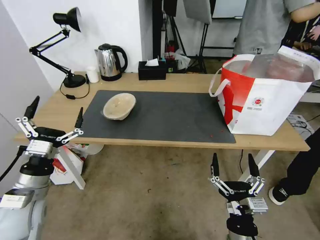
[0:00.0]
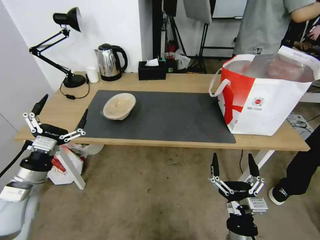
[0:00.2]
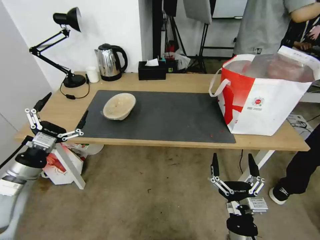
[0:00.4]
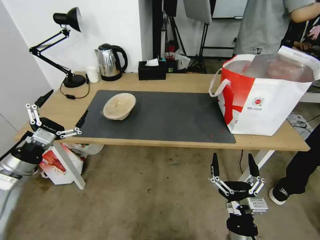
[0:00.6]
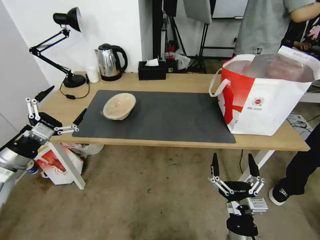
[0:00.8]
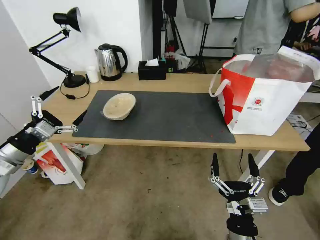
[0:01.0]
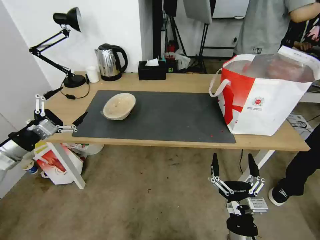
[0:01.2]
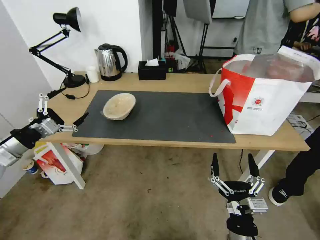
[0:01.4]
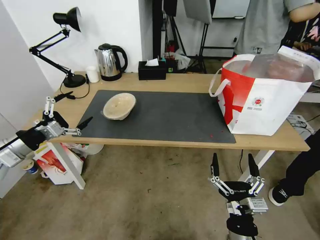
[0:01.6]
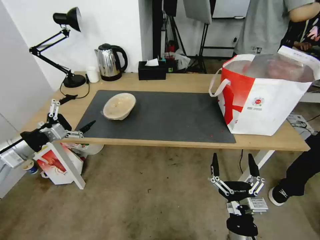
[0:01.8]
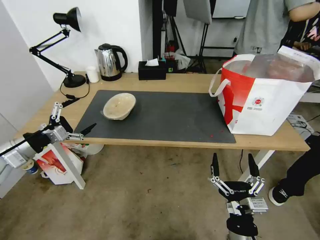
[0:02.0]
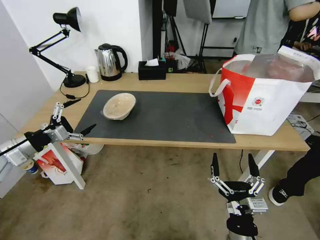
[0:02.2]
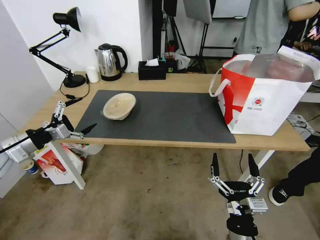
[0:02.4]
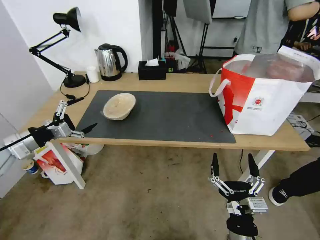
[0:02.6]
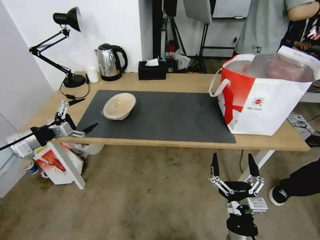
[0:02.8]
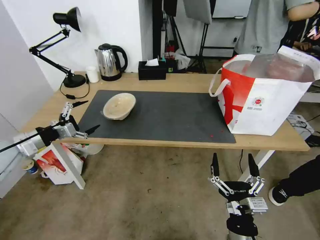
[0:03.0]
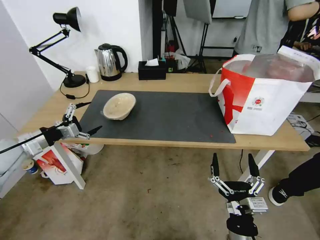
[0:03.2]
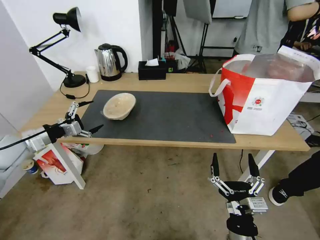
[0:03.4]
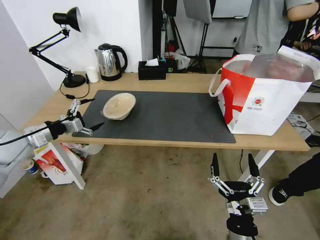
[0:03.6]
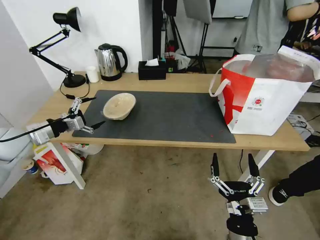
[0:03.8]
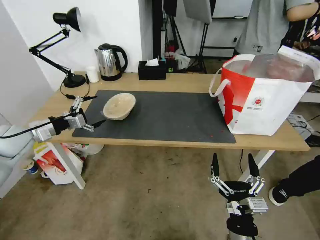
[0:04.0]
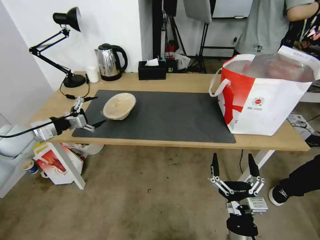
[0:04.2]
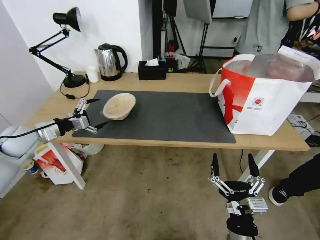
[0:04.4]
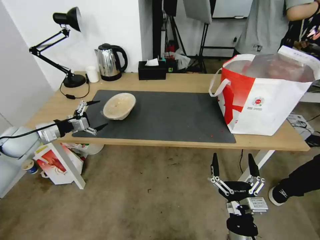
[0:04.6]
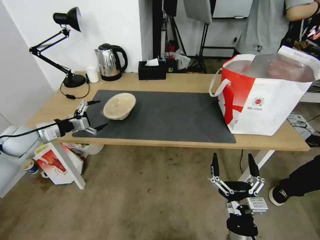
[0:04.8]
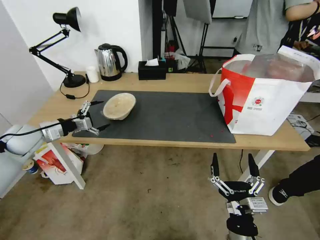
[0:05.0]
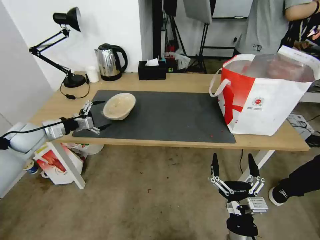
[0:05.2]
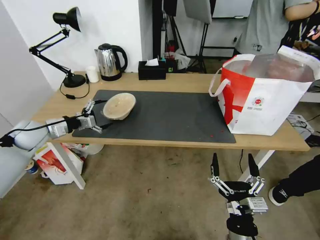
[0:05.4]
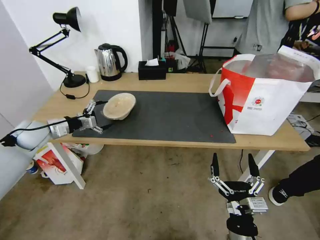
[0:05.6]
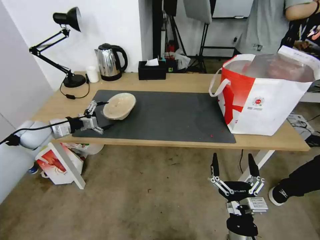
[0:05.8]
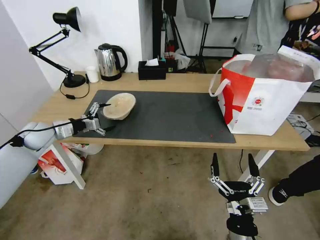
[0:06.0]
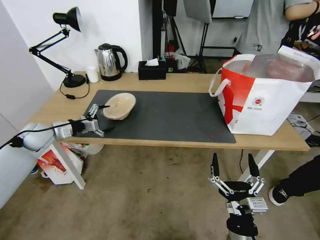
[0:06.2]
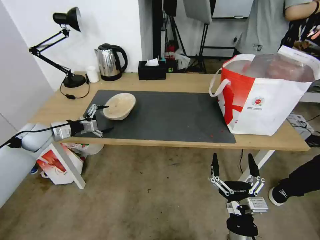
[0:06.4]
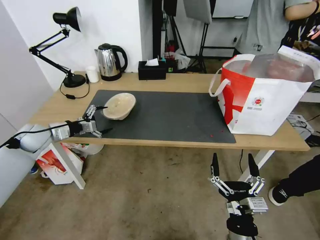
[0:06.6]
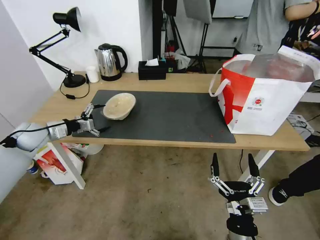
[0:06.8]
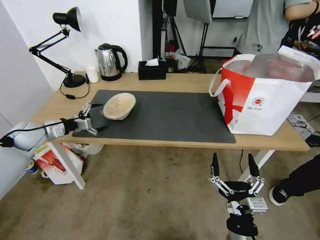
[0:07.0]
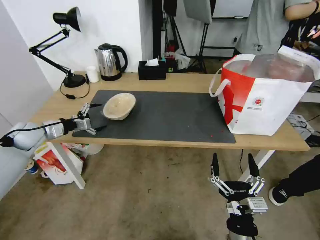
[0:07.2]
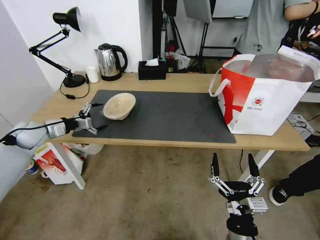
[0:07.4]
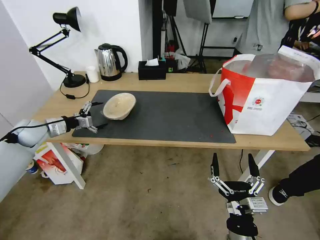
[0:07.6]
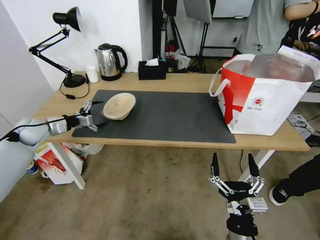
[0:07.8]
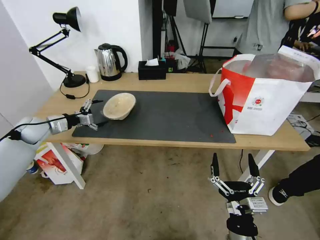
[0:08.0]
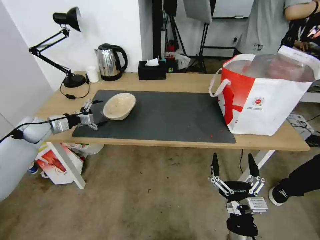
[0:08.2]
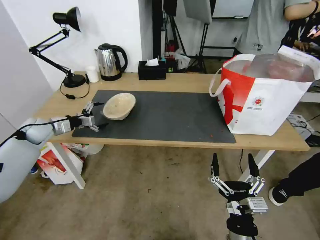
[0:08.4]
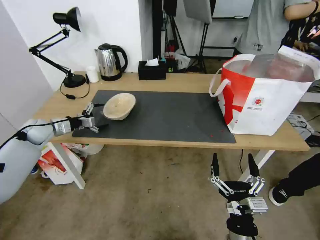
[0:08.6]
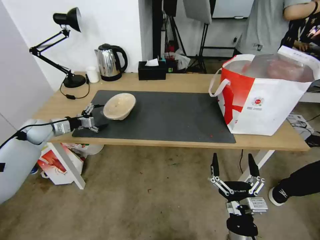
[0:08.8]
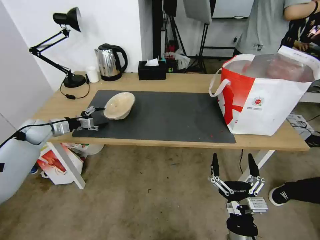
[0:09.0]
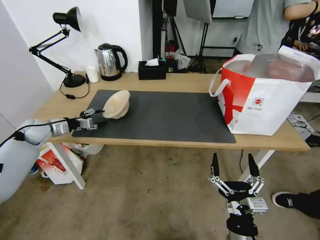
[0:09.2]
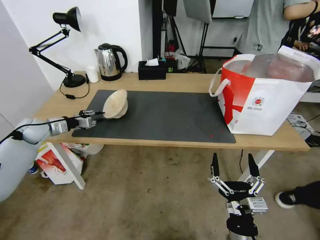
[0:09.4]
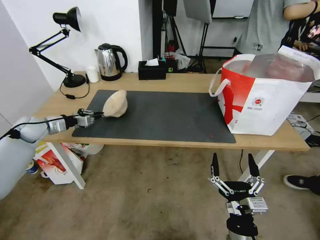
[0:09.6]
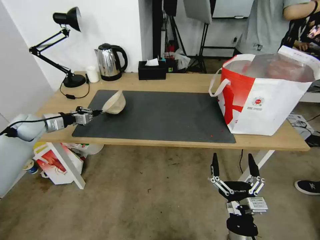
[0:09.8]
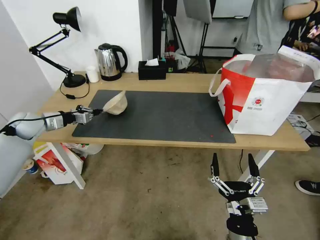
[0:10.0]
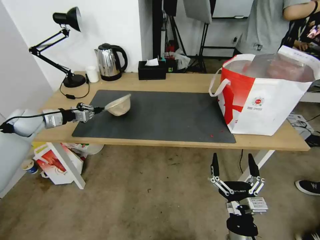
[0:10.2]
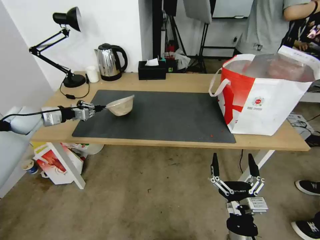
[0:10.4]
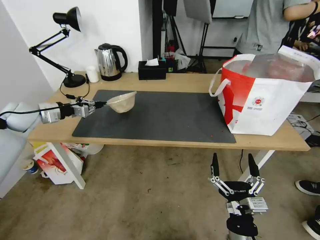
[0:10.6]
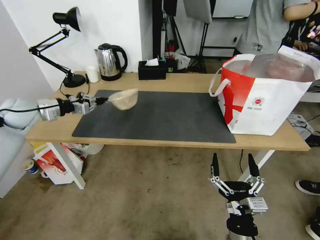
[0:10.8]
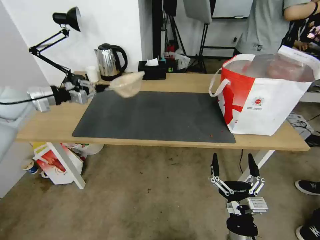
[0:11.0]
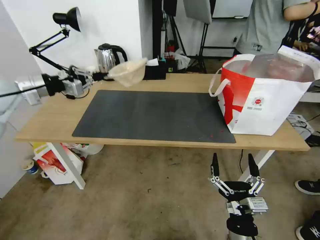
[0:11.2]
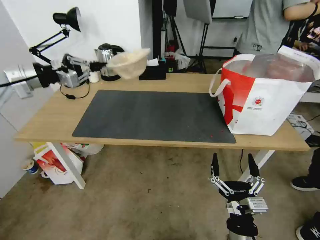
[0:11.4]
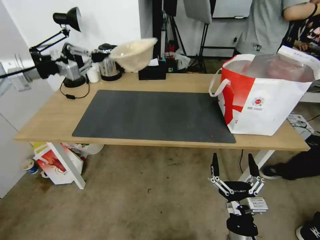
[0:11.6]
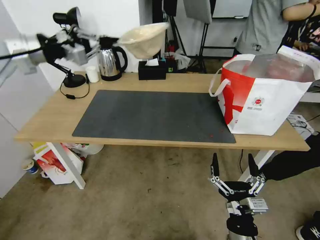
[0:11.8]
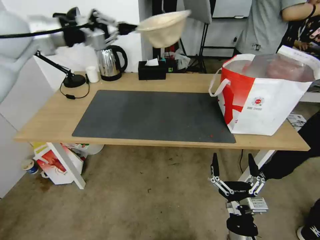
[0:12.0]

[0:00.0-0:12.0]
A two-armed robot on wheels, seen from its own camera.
Task of the whole recording: Pick up the trash from the table and place it into the takeout bag.
0:00.0 to 0:01.6: The left gripper moves to the left, forward and upward, some 15 cm.
0:01.6 to 0:03.0: The left gripper changes place by roughly 5 cm.
0:03.0 to 0:04.4: The left gripper travels forward by some 5 cm.
0:04.4 to 0:06.0: The left gripper changes place by about 5 cm.
0:06.0 to 0:09.0: The grippers stay close to where they were, moving slightly.
0:09.0 to 0:10.4: The left gripper is displaced upward by approximately 5 cm, and closes.
0:10.4 to 0:12.0: The left gripper heads upward and to the right, covering about 30 cm.

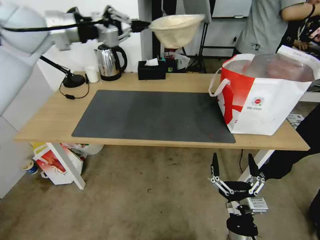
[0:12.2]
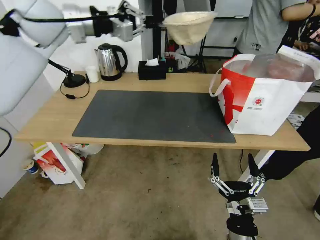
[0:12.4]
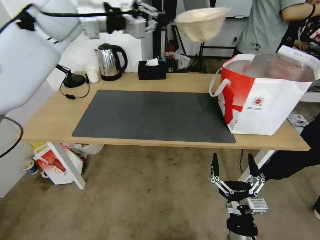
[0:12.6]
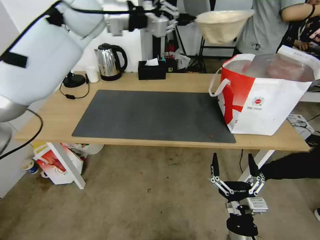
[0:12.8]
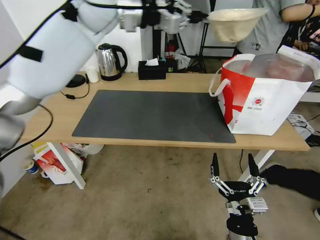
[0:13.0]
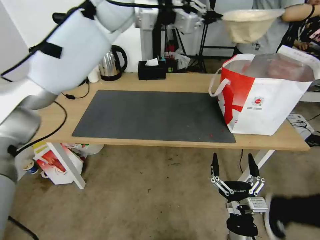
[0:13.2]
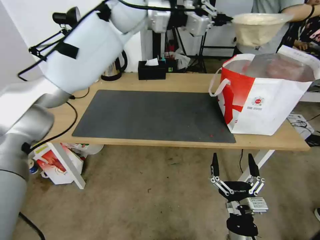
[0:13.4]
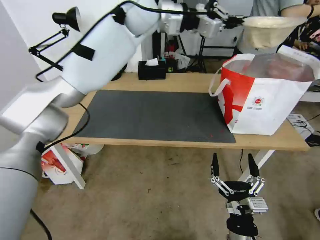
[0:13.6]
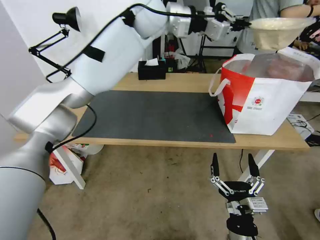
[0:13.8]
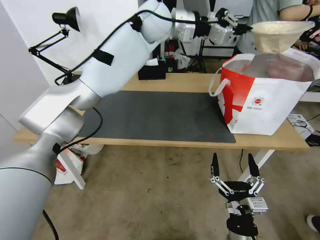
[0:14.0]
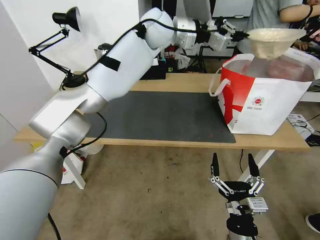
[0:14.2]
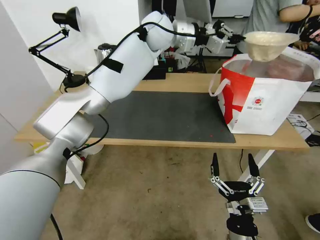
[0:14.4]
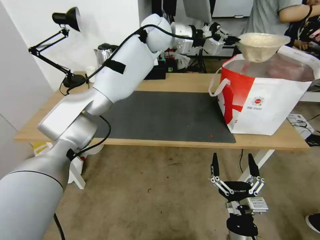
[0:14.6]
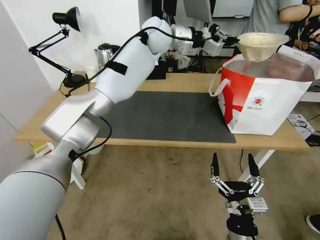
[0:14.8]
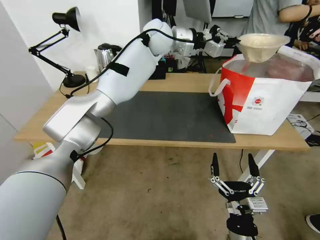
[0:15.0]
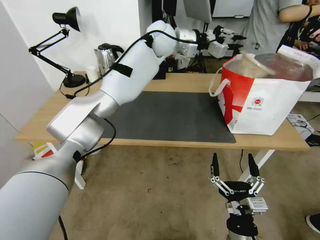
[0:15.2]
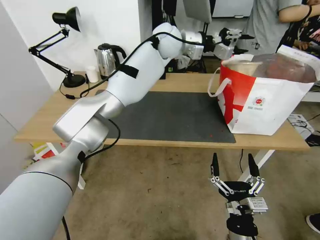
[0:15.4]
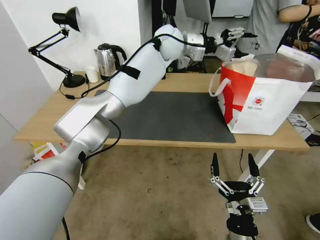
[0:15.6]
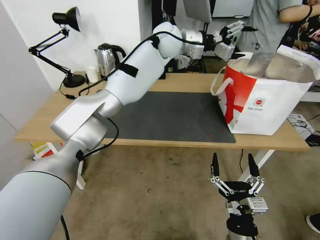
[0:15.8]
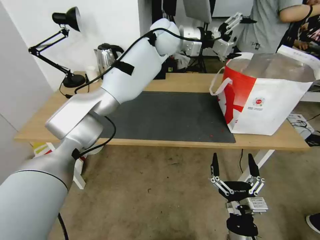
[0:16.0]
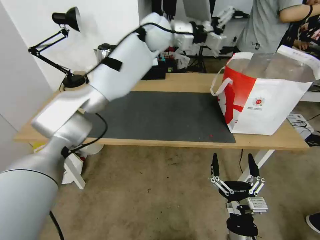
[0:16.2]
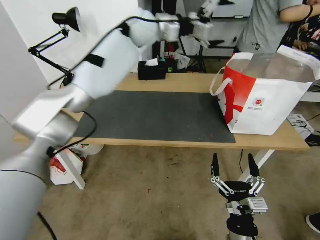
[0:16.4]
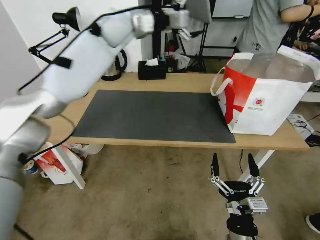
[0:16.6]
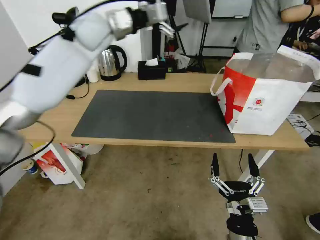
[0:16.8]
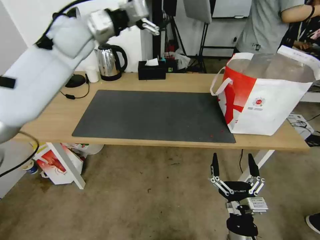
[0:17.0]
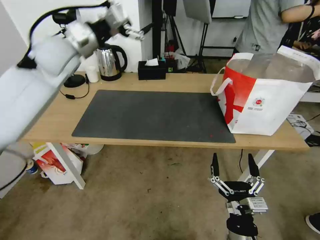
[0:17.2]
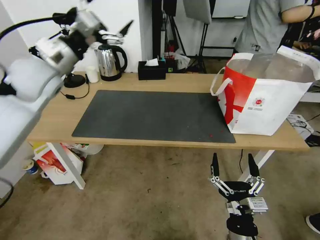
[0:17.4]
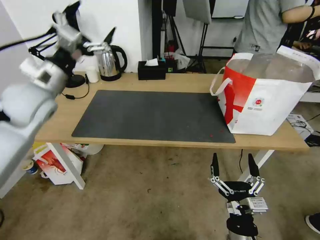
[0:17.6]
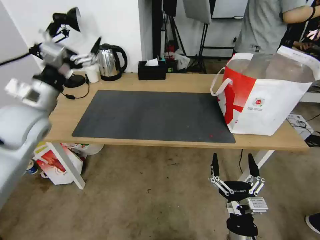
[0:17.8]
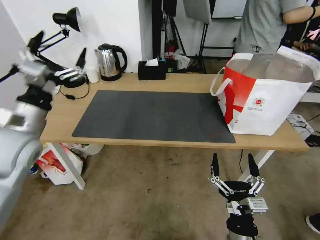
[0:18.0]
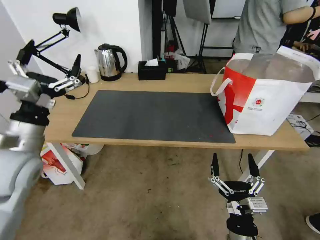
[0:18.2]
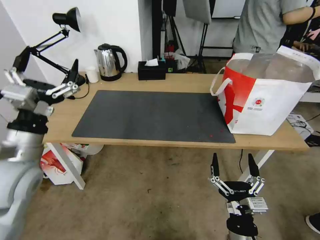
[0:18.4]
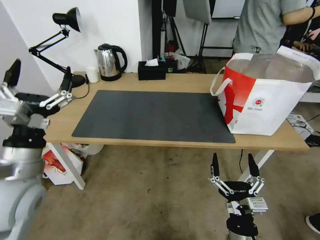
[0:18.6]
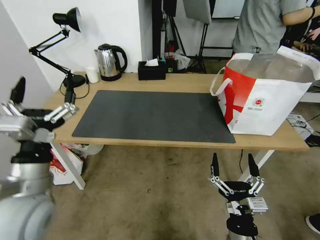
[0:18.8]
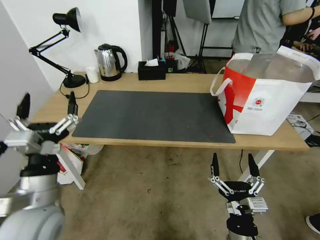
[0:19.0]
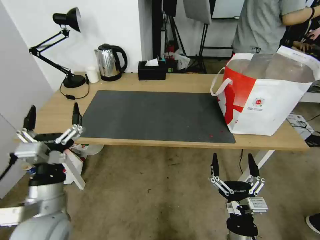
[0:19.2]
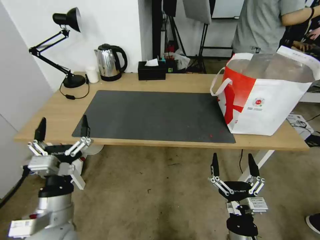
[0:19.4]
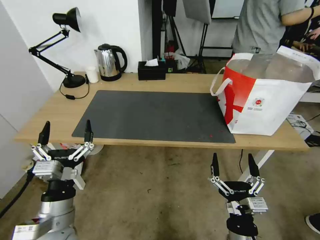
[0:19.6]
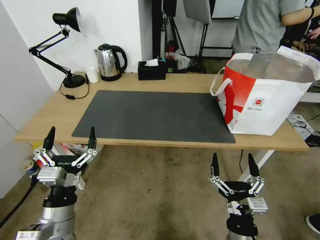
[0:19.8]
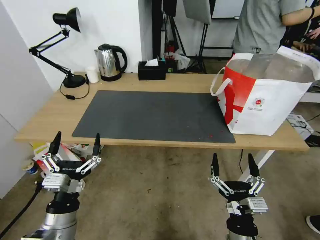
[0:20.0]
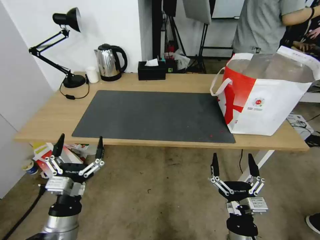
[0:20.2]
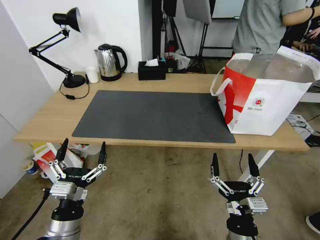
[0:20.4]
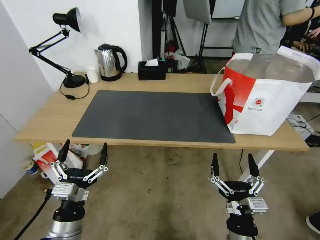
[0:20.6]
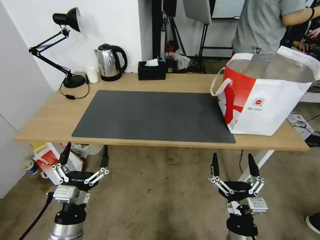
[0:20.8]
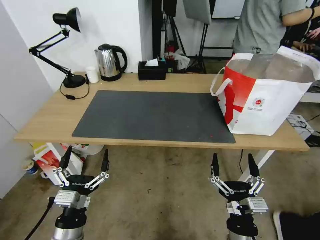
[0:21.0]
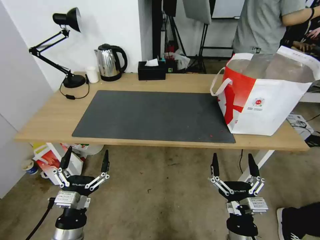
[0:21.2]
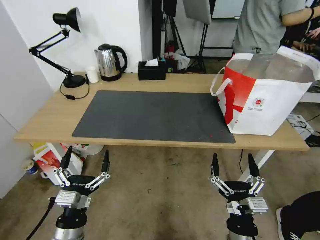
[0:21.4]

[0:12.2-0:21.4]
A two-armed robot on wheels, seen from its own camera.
Task of the whole recording: Pick up the trash from the table and place it into the takeout bag.
0:12.2 to 0:13.8: The left gripper goes some 25 cm to the right.
0:13.8 to 0:15.2: The left gripper shifts roughly 5 cm downward.
0:15.2 to 0:16.8: The left gripper is displaced to the left by about 20 cm, and opens up.
0:16.8 to 0:18.4: The left gripper goes roughly 35 cm backward and downward.
0:18.4 to 0:19.8: The left gripper goes some 20 cm downward, backward and to the right.
0:19.8 to 0:21.4: The left gripper heads downward, covering approximately 5 cm.
